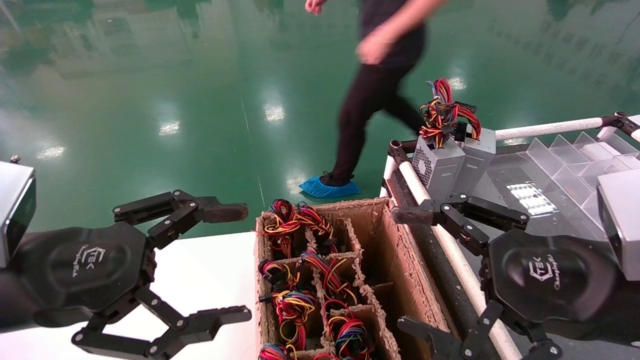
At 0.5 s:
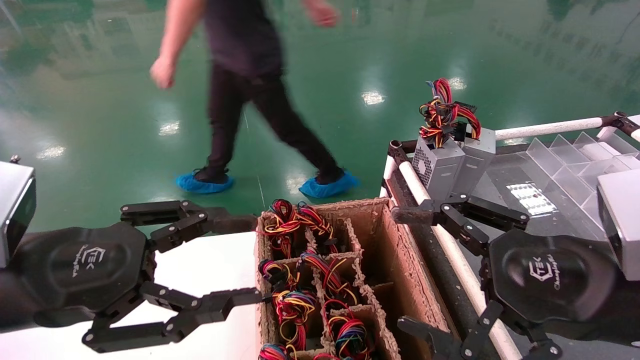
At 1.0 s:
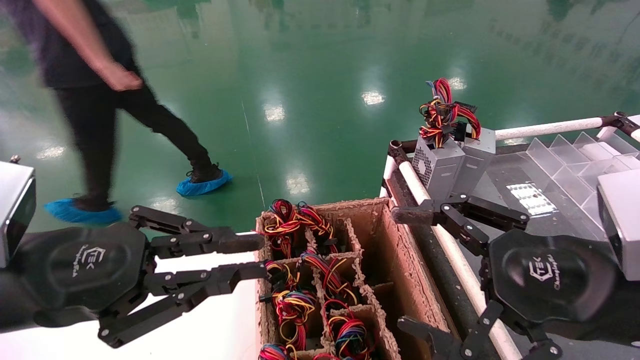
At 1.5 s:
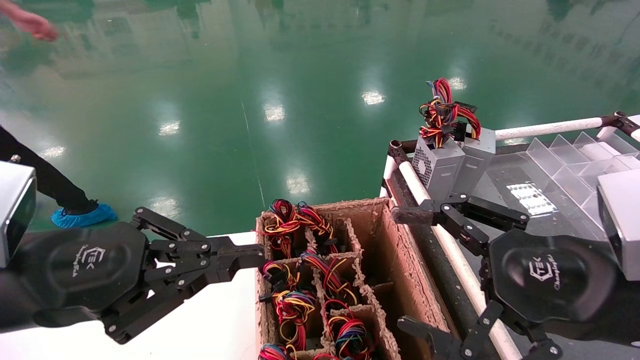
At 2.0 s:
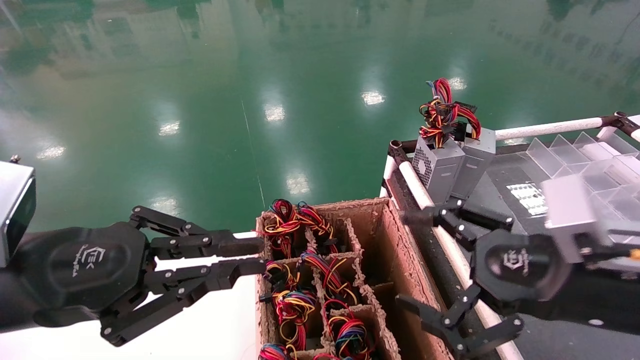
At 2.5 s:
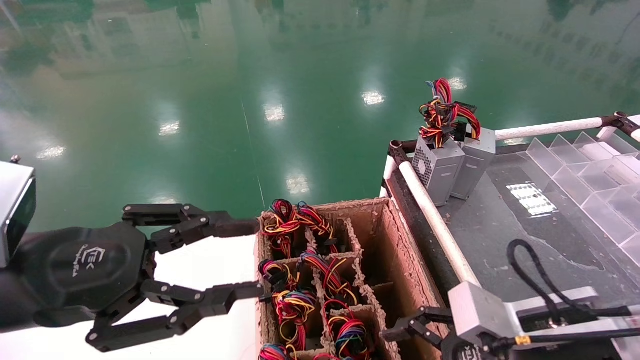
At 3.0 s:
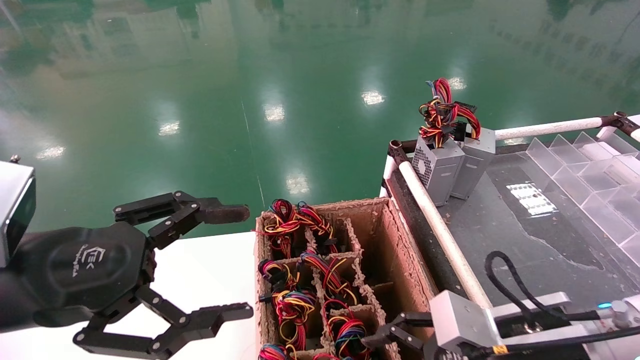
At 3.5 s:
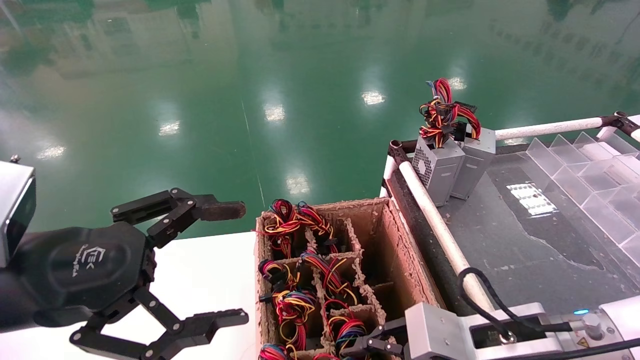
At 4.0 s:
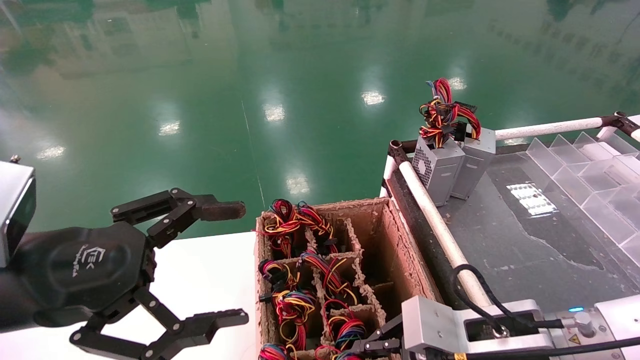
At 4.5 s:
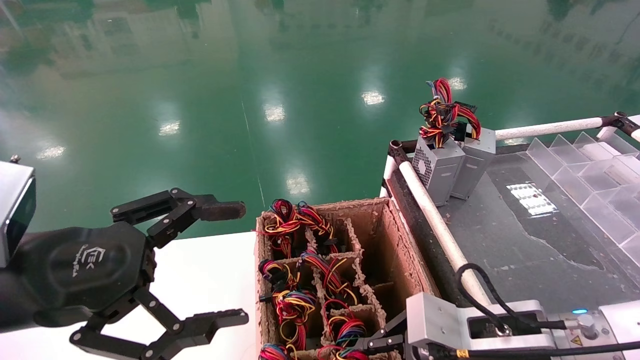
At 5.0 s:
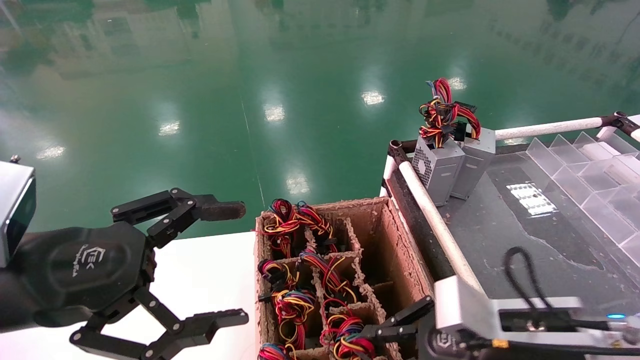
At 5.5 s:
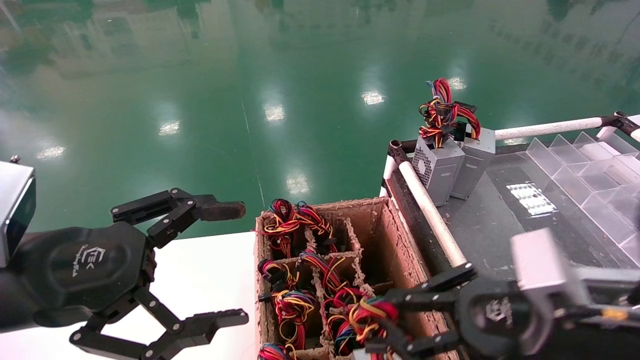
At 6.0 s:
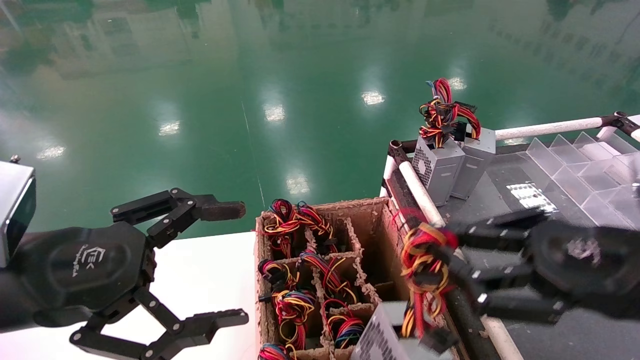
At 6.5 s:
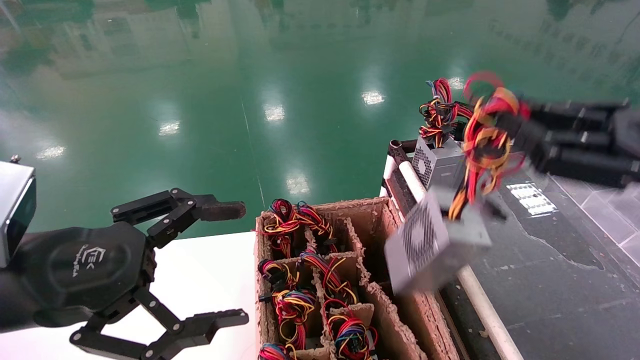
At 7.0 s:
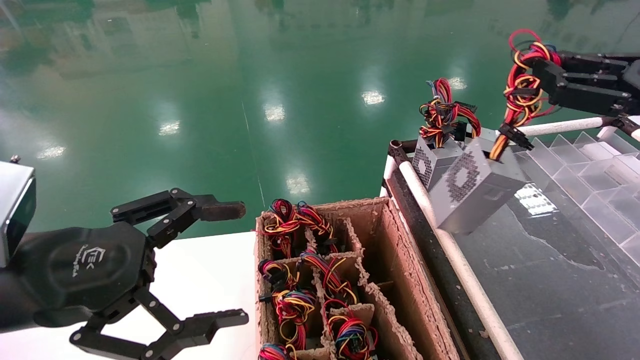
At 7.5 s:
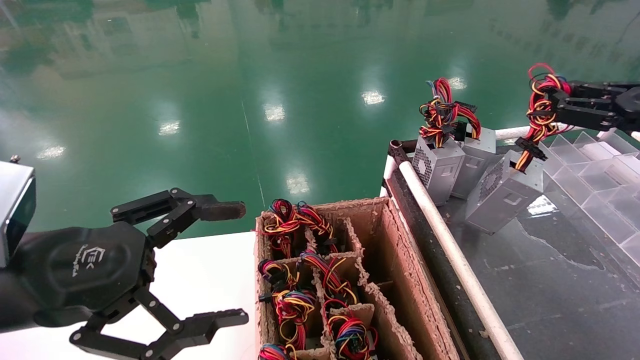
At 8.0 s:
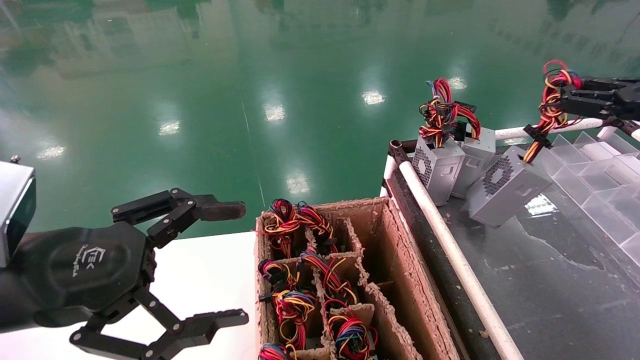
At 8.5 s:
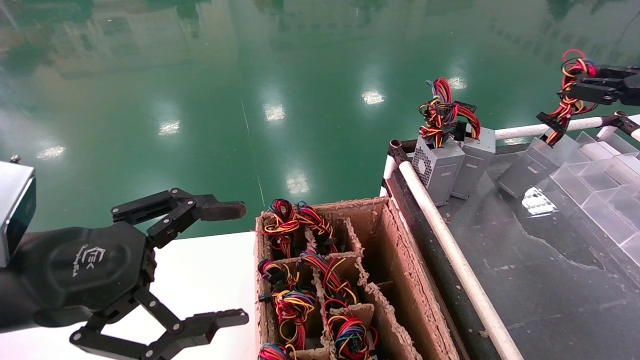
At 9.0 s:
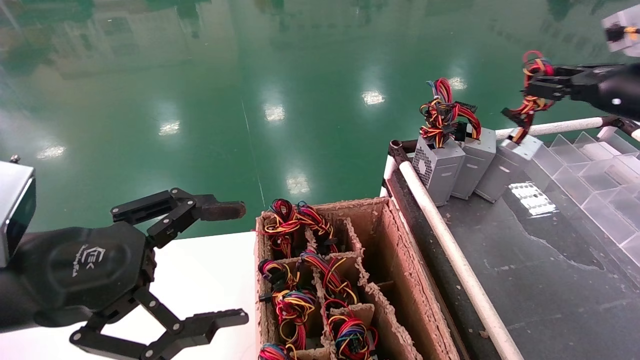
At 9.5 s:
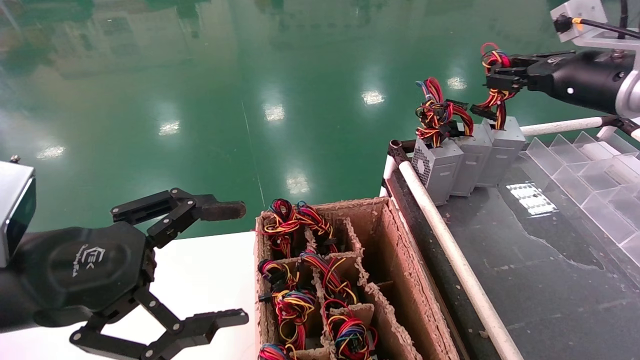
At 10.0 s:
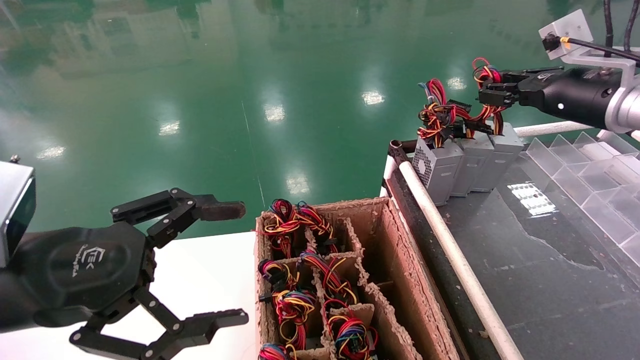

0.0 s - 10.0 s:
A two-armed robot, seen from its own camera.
Step, 1.5 s - 4.5 s: Grab and lift the power supply from the large box.
0.0 s - 2.0 s: The left gripper closes its fingers.
2.0 s - 4.0 s: The right gripper moves downward and to the left, about 10 cm, and closes, while the left gripper opens.
4.0 s - 6.0 s: The right gripper shifts approximately 15 cm upward, to the right and backward.
6.0 s - 8.0 s: The right gripper goes approximately 25 cm to the right, forward and upward.
8.0 s - 10.0 s: The right gripper travels to the left and forward by about 15 cm.

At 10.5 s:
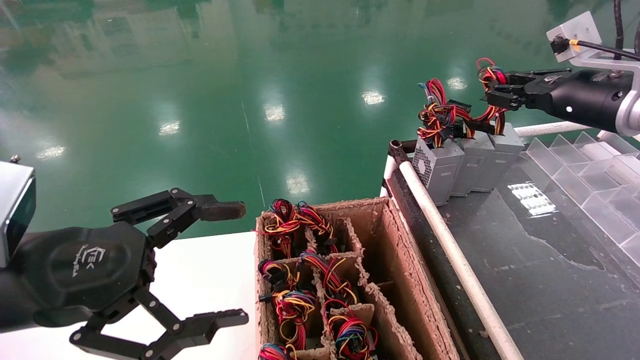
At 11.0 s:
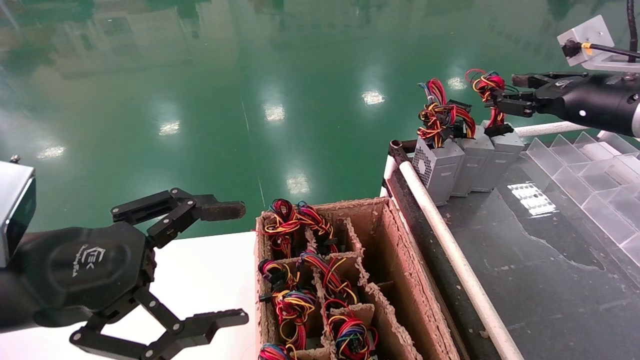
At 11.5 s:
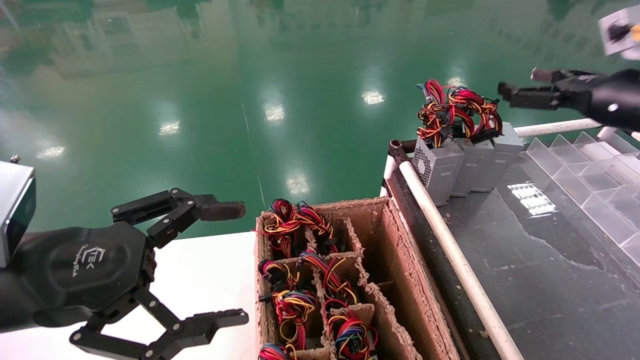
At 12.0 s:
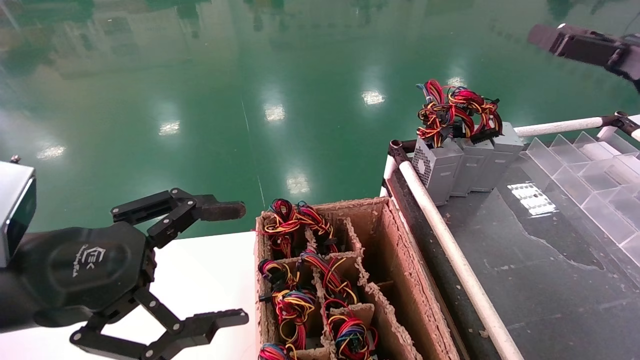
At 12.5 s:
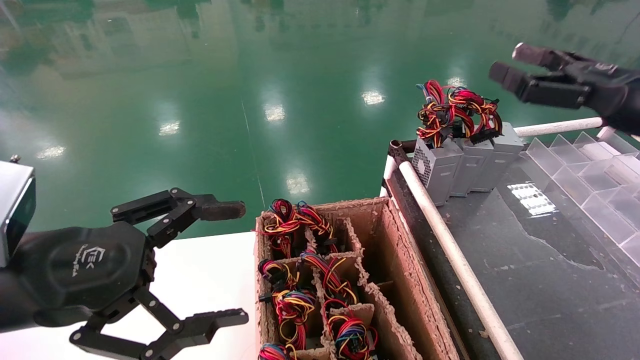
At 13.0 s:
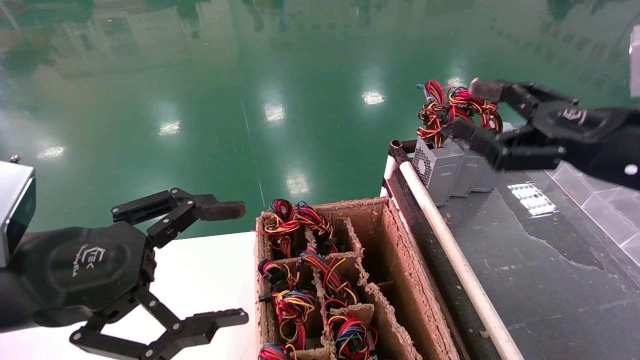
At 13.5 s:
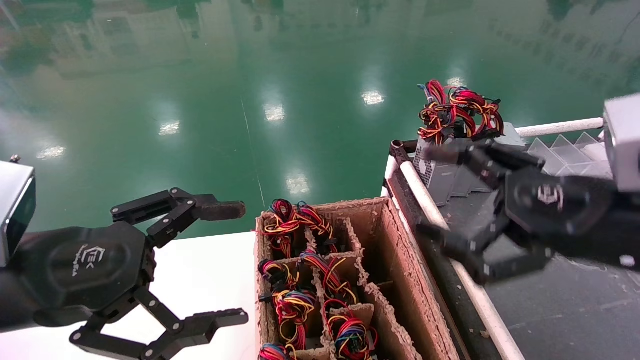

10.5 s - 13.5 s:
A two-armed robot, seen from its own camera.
10.5 s - 12.0 s: The right gripper goes about 10 cm backward, and opens up.
12.0 s - 13.5 s: The right gripper is displaced to the left, backward and downward by about 20 cm.
